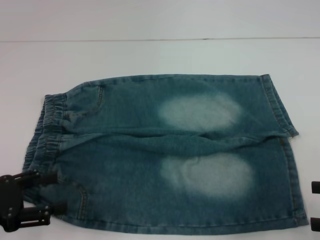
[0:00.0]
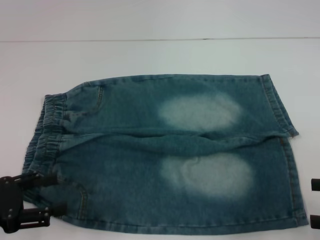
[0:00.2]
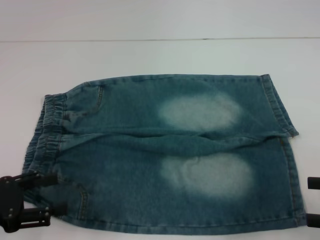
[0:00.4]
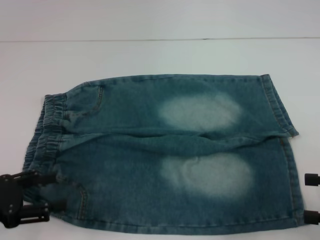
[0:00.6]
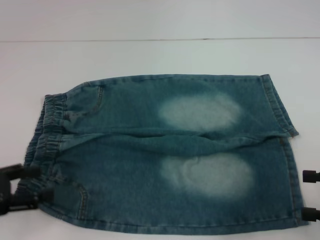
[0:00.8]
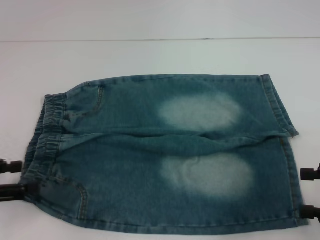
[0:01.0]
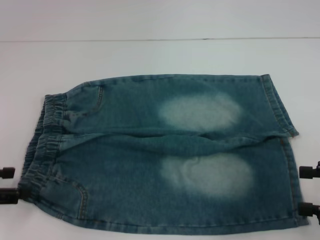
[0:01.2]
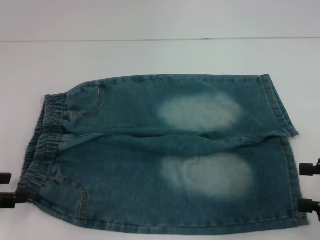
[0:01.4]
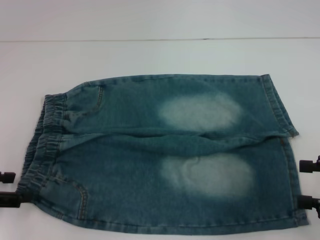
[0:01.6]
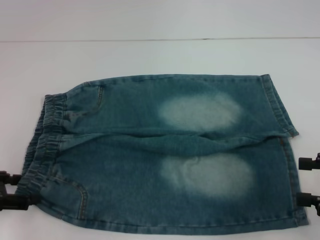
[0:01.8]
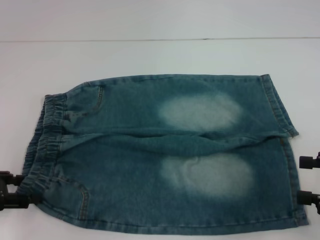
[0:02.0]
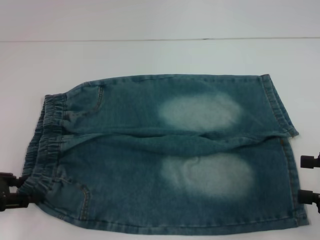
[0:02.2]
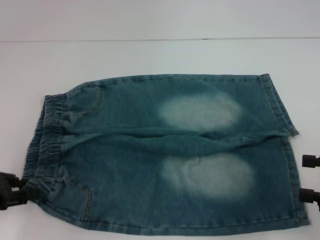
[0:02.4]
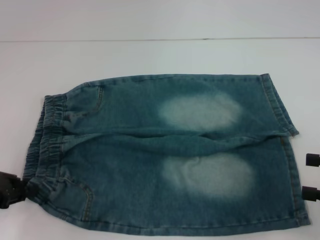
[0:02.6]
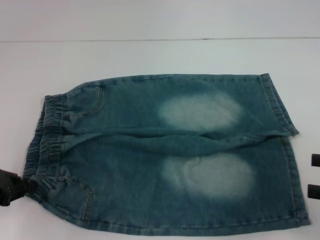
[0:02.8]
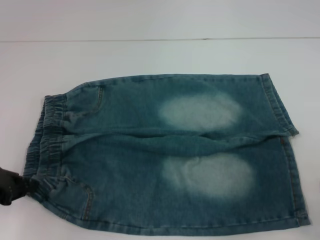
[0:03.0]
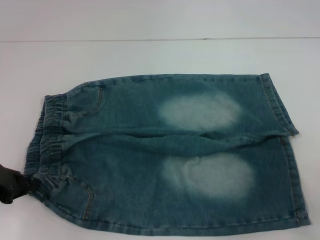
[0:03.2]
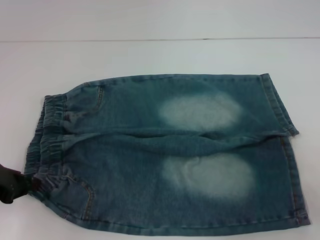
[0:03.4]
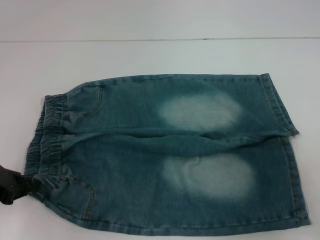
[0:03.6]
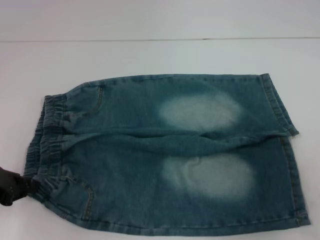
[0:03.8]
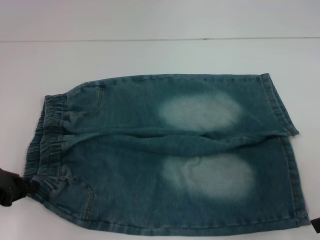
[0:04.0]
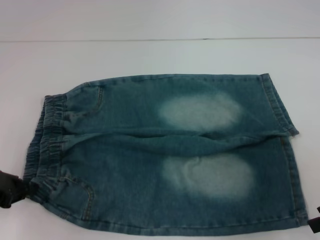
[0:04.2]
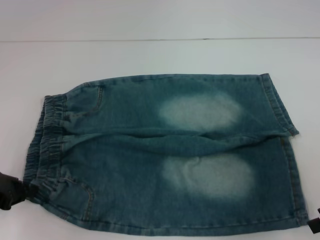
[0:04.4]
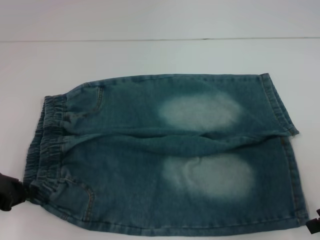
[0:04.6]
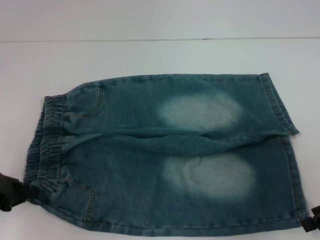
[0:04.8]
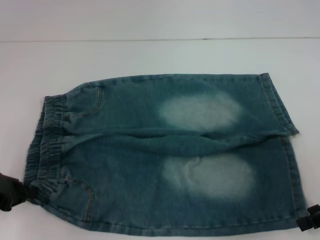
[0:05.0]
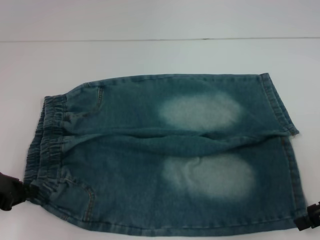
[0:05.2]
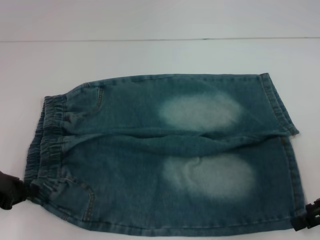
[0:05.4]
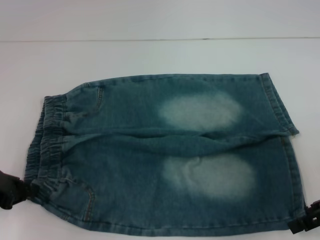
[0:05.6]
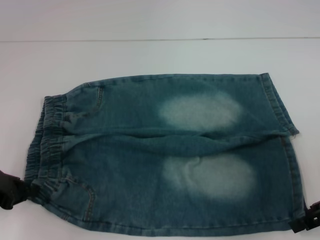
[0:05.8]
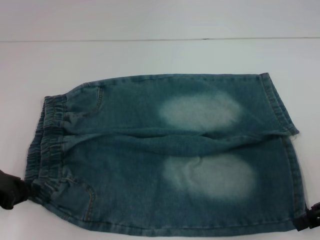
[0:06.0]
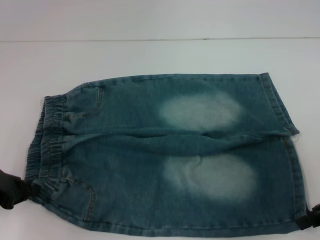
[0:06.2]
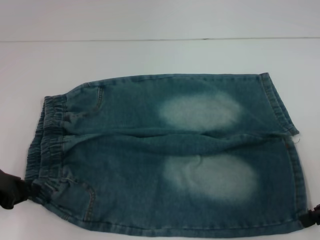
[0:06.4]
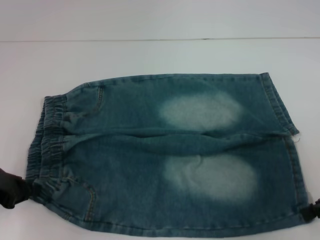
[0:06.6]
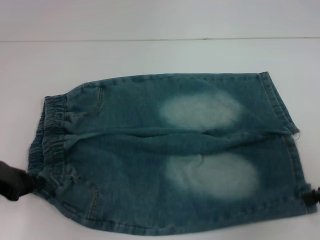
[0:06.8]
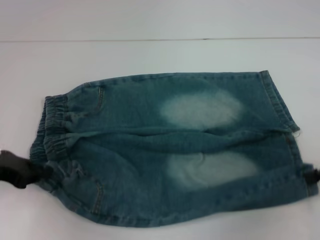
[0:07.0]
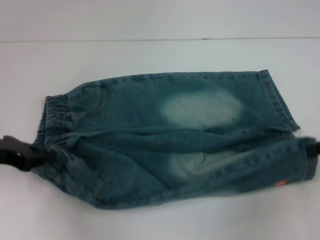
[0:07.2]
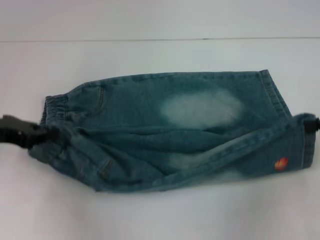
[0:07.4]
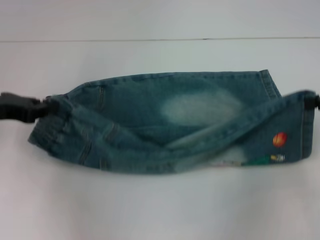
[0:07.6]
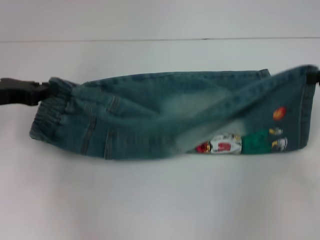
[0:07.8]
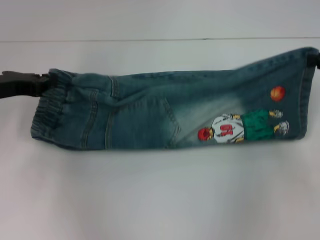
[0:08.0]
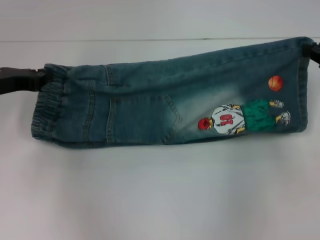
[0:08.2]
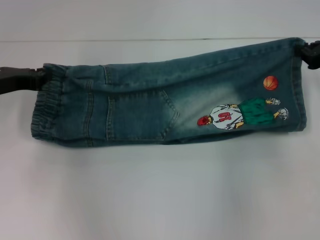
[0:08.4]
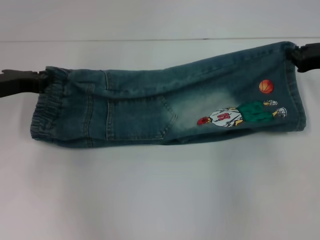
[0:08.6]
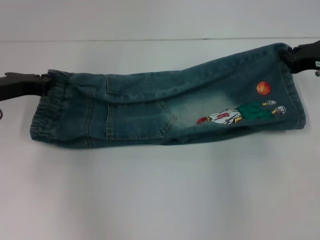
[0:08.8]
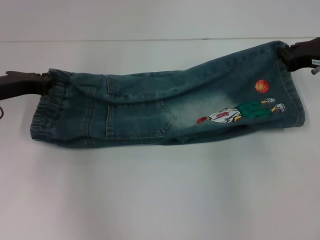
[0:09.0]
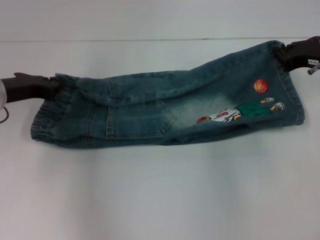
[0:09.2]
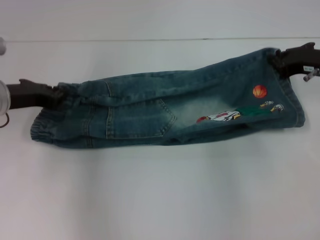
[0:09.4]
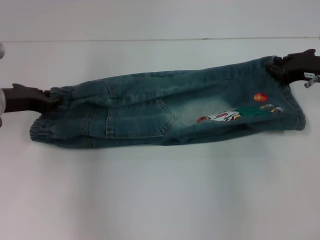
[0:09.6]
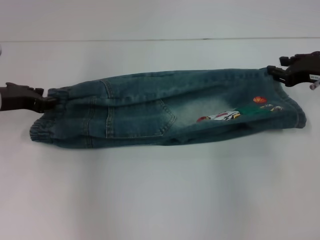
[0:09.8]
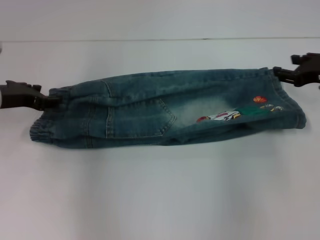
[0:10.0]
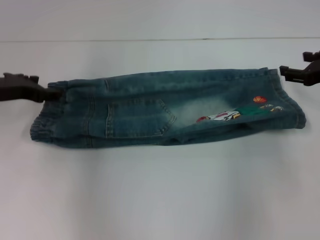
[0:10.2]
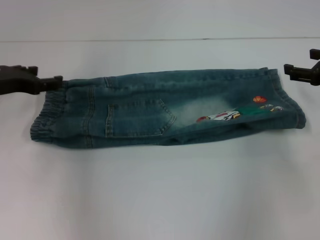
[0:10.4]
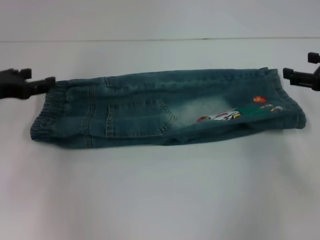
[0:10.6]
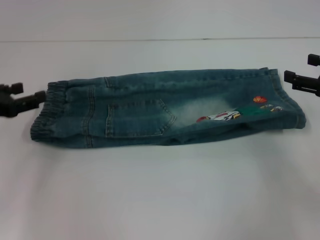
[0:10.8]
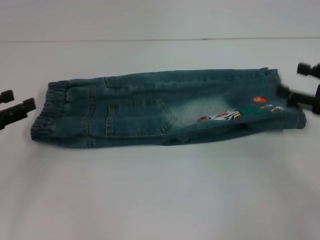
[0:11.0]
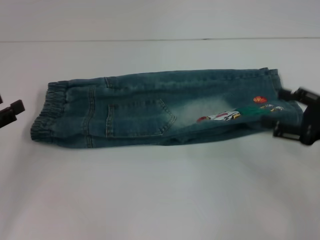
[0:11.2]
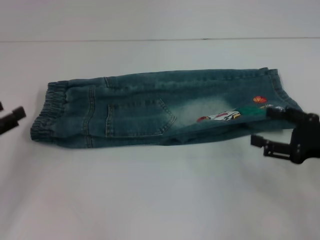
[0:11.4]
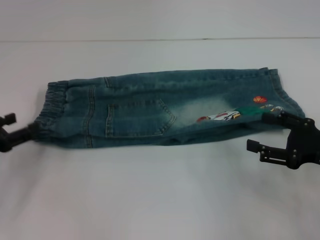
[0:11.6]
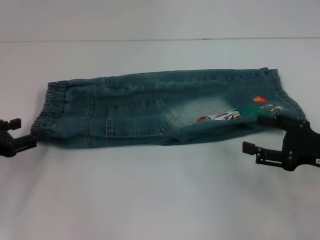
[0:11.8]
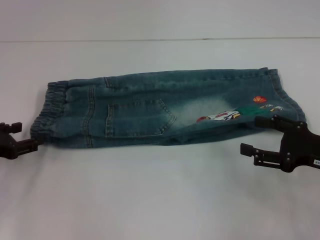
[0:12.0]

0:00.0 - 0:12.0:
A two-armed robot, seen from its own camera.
Step, 0:00.0 - 0:03.0: Hold the lower left waistband with your left hand.
Step, 0:03.2 - 0:06.6: Grab the lower right pant leg with your right hand.
Step, 0:06.8 - 0:10.2: Fold upward with your right hand.
0:00.0 - 0:01.6: The left gripper moves approximately 5 cm.
0:01.6 - 0:03.0: The left gripper closes up.
0:04.4 - 0:06.0: The grippers move only a little.
0:06.0 - 0:07.6: The right gripper is displaced upward and forward by about 10 cm, and closes up. Meanwhile the left gripper is displaced forward and upward by about 10 cm.
0:07.6 - 0:09.0: The right gripper is displaced forward and to the left by about 10 cm, while the left gripper shifts by approximately 5 cm.
0:09.0 - 0:10.4: The left gripper opens its fingers. Meanwhile the right gripper moves some 5 cm, and opens up.
0:10.4 - 0:12.0: Both grippers move backward and downward, roughly 10 cm.

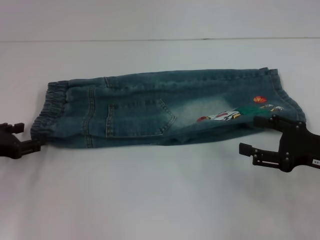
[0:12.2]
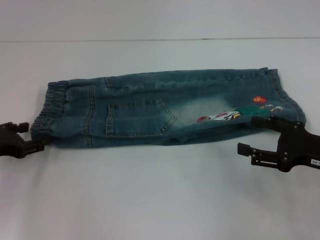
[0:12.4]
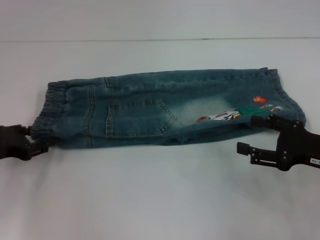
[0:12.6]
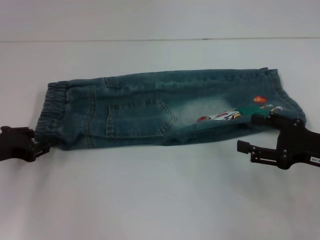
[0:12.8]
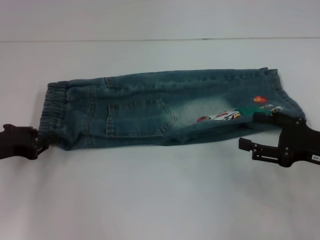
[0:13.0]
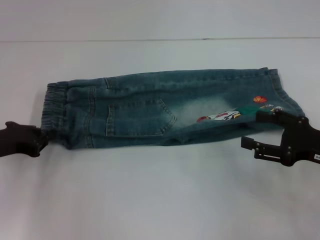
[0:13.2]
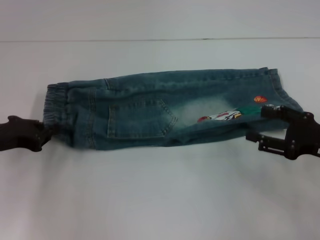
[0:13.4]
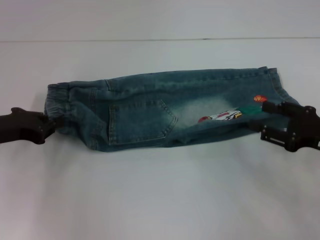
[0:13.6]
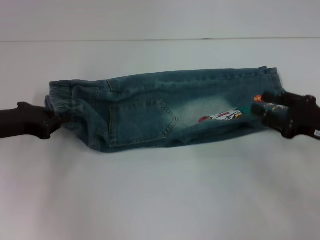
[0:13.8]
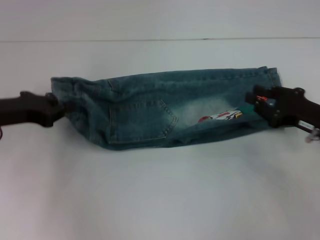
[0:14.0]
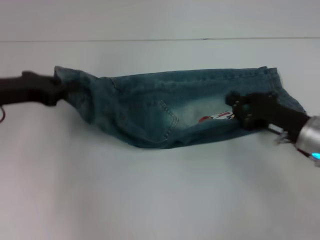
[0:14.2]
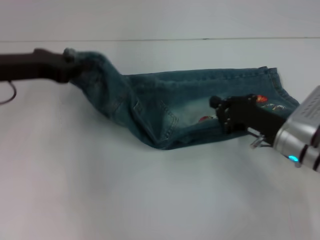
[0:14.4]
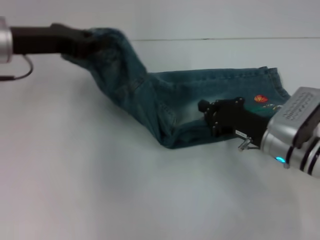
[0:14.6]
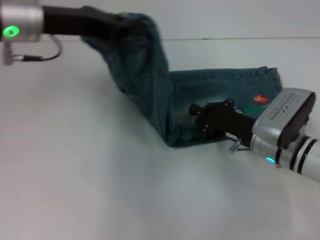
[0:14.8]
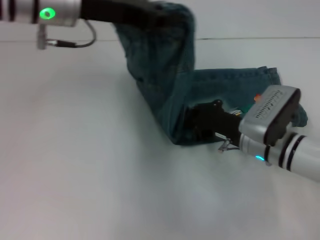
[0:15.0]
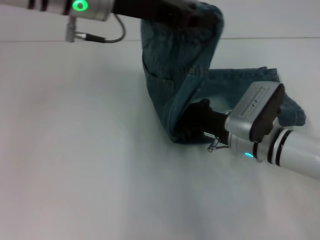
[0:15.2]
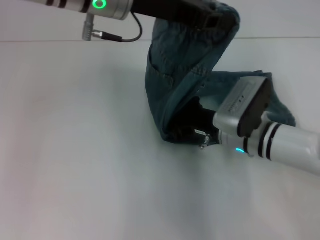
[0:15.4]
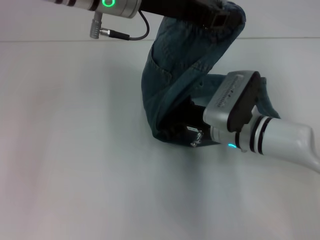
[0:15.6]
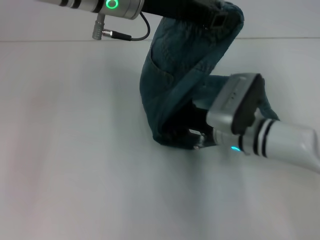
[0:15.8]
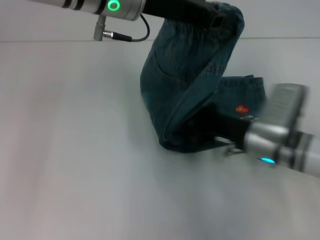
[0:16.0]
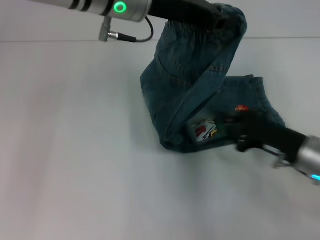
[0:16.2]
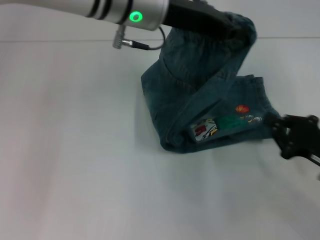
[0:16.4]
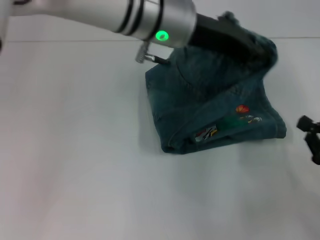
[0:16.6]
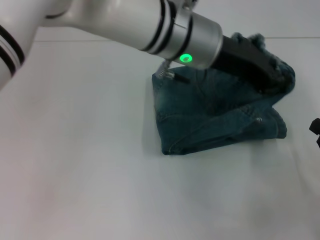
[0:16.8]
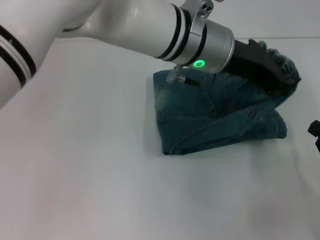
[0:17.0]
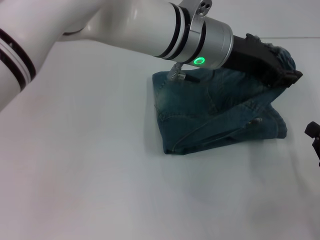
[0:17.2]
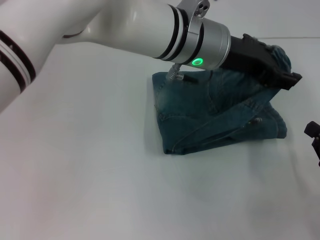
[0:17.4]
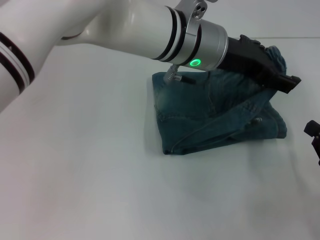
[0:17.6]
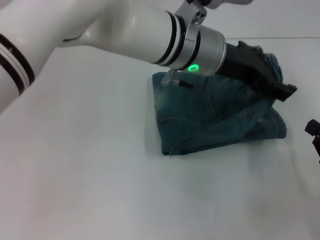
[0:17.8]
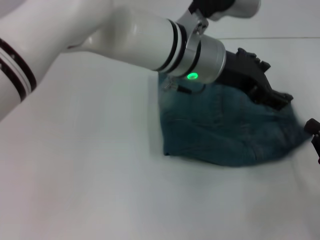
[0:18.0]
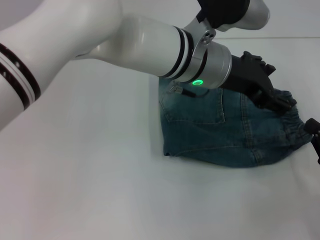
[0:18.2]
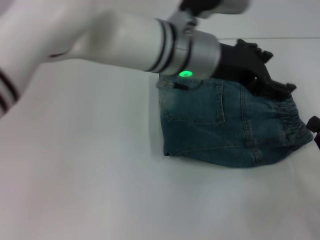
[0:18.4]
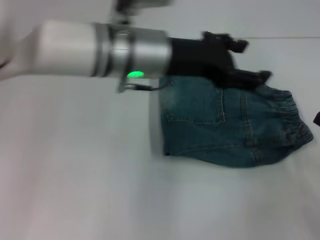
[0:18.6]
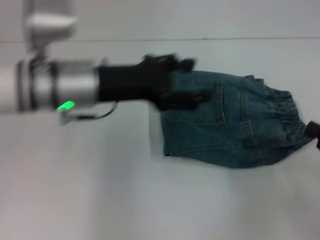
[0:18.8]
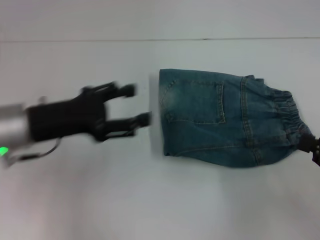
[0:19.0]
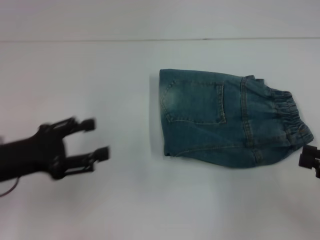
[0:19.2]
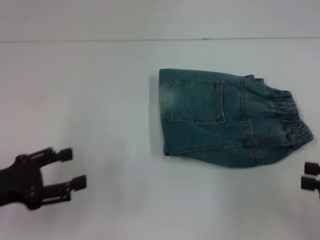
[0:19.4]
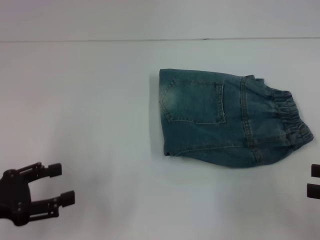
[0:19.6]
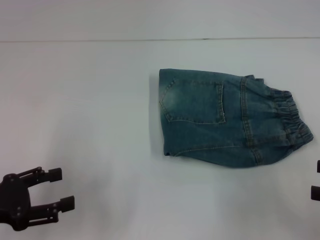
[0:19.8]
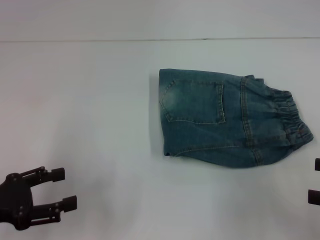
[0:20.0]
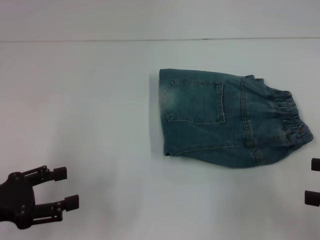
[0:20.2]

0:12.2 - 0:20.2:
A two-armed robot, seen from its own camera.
Step, 0:13.6 - 0:16.0: Press the middle of the pants with your right hand.
Step, 0:16.2 - 0:18.2: Fold to the right with your left hand.
0:12.2 - 0:13.8: The left gripper shifts by about 5 cm, and closes up.
0:13.8 - 0:15.4: The right gripper moves to the left, about 15 cm, and closes up. The left gripper shifts about 25 cm to the right and upward.
0:15.4 - 0:17.0: The left gripper heads to the right and downward, covering about 10 cm; the right gripper goes approximately 25 cm to the right and backward.
0:17.0 - 0:18.6: The left gripper shifts about 10 cm to the left, and opens.
0:18.6 - 0:20.2: The left gripper heads to the left, backward and downward, covering approximately 30 cm. Meanwhile the right gripper moves upward, some 5 cm, and opens its fingers.
